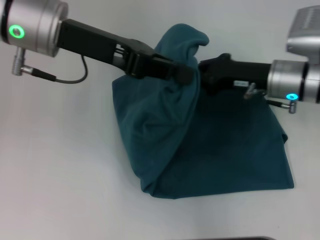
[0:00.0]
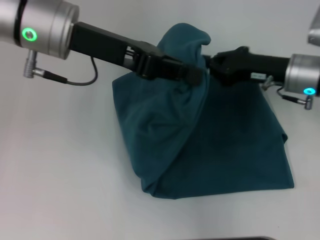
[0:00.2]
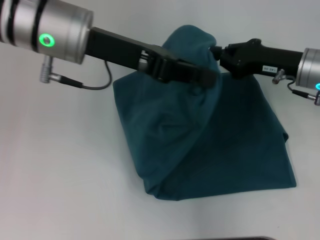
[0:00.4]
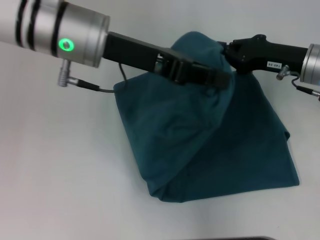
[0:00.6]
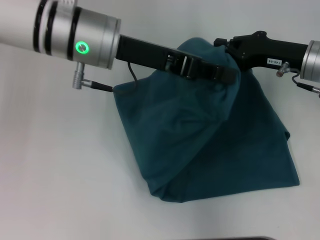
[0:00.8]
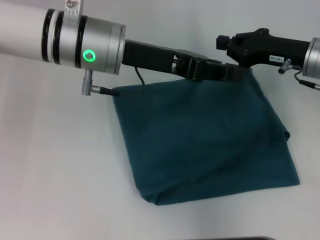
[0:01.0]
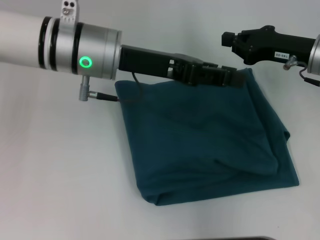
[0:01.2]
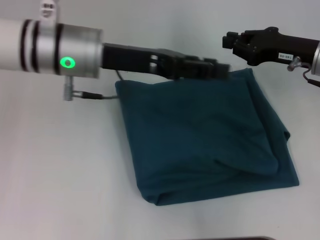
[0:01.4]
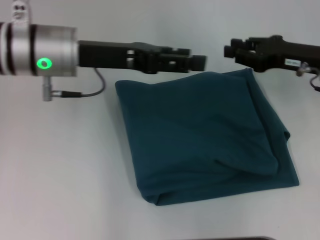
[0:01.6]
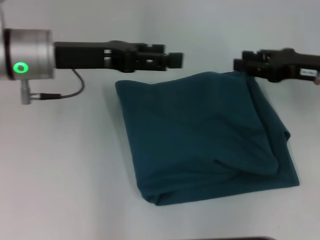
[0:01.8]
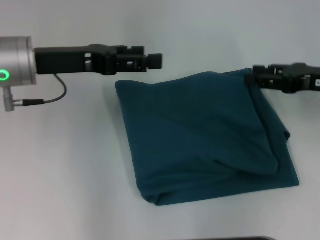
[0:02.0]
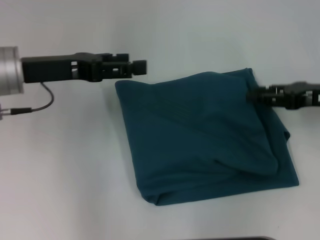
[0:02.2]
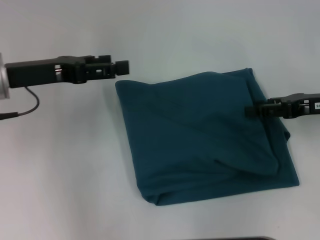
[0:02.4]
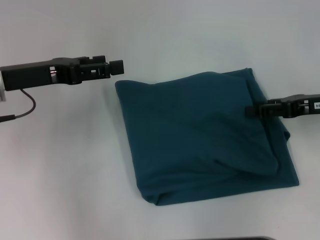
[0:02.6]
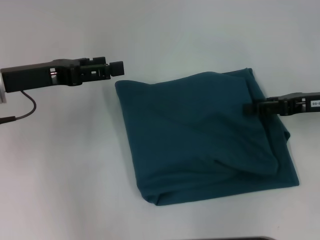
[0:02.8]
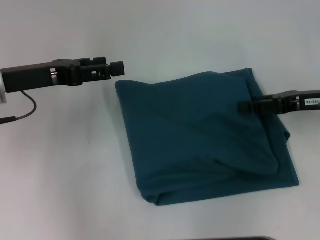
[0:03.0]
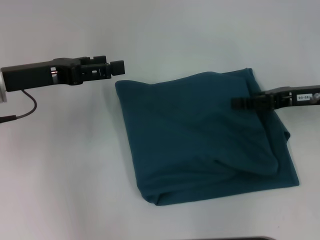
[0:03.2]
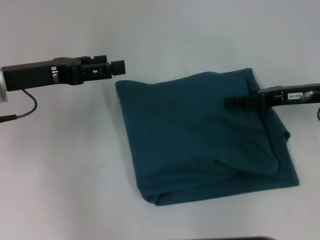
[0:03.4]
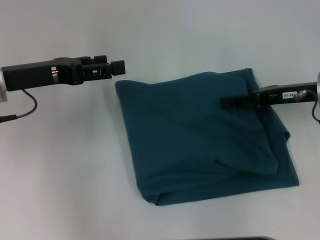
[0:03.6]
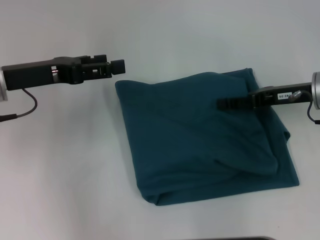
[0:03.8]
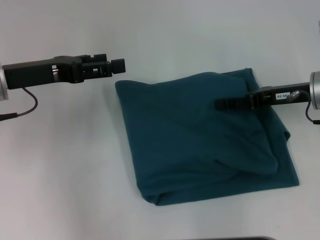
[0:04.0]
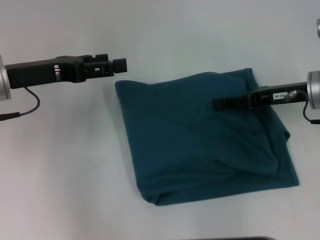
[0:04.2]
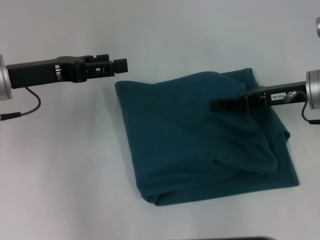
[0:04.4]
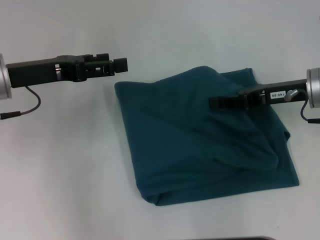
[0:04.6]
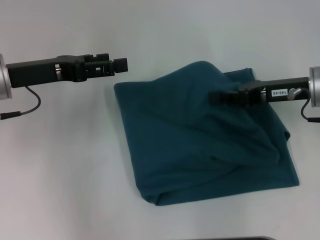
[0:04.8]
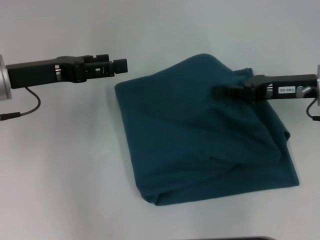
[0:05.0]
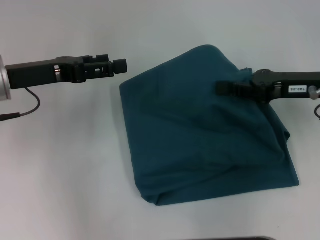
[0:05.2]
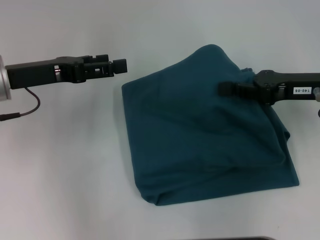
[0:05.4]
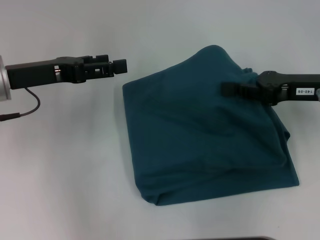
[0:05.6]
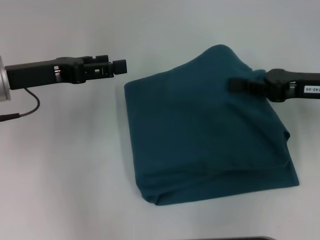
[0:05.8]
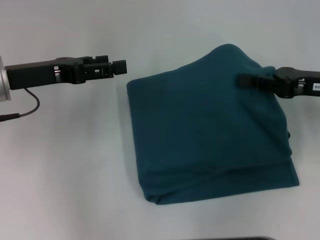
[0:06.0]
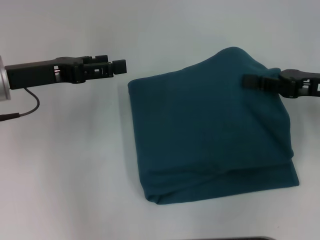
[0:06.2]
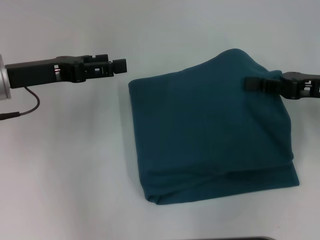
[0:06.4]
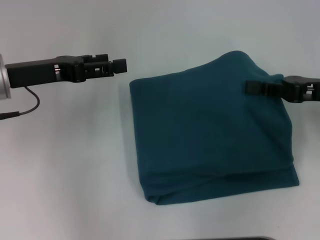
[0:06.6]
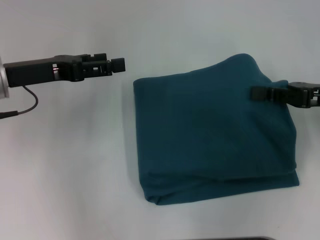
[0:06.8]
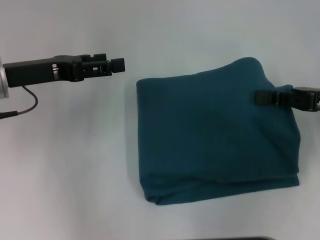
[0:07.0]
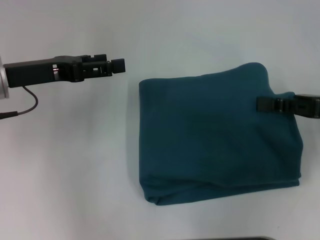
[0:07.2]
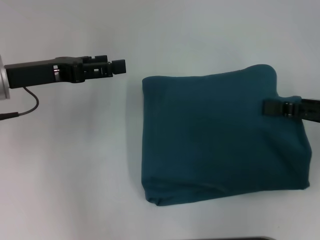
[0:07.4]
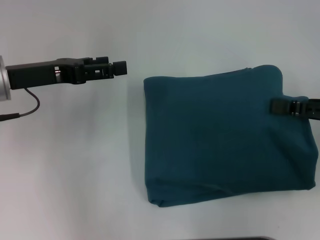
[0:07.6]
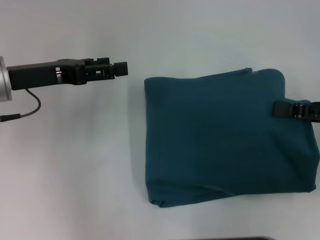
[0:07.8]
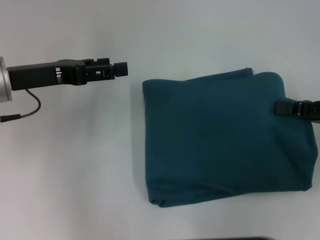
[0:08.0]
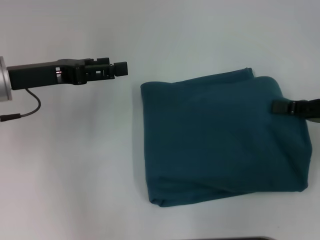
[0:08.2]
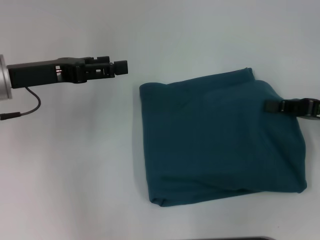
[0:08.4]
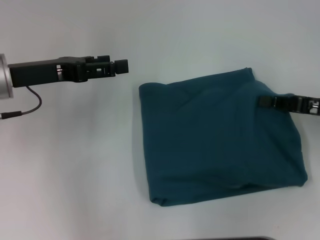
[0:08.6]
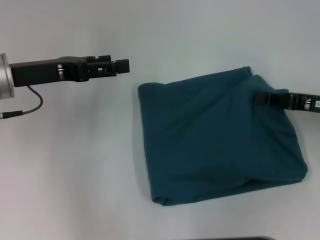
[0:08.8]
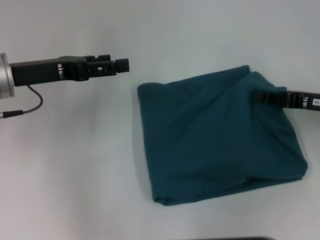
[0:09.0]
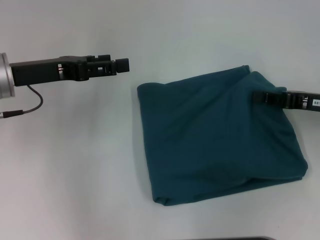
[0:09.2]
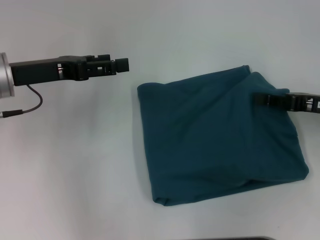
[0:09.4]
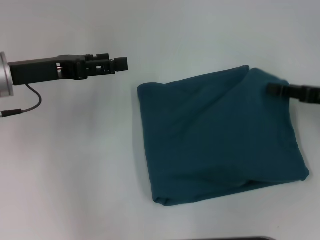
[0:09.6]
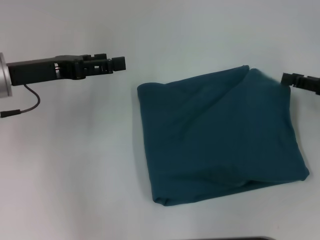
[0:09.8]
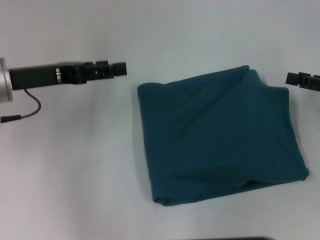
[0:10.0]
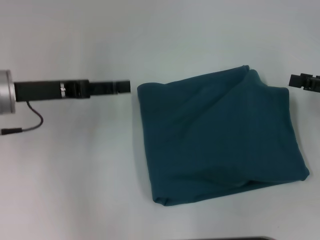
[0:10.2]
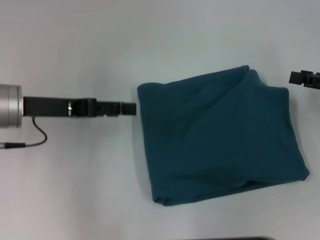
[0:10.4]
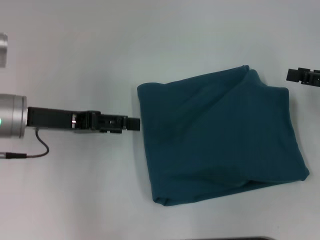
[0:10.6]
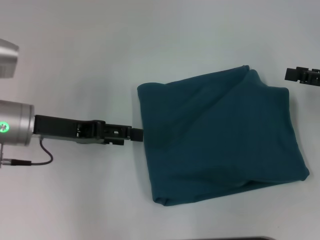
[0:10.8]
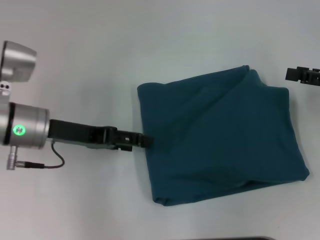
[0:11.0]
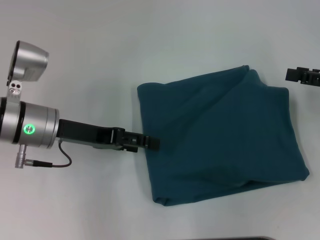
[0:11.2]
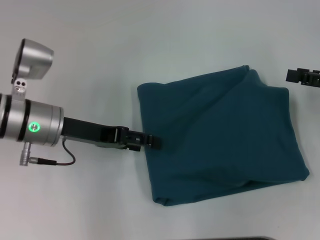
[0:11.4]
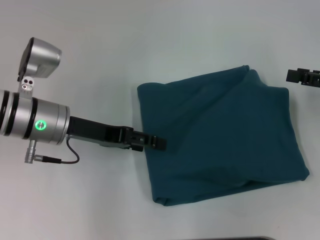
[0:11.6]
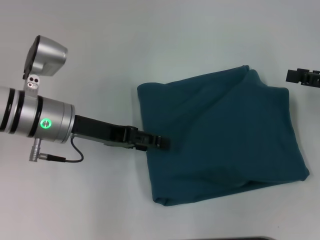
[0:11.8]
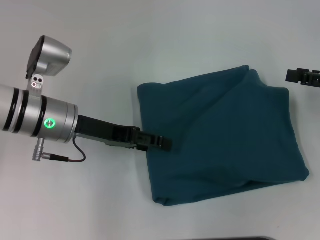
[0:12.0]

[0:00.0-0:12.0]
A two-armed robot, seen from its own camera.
Step, 0:00.0 to 0:02.0: Fold the clothes to the left.
0:00.0 to 0:01.6: The right gripper heads to the right, covering approximately 5 cm, while the left gripper shifts some 5 cm downward, and opens its fingers.
0:01.6 to 0:03.0: The left gripper moves to the left, some 10 cm. Meanwhile the right gripper opens.
0:03.0 to 0:04.4: The right gripper moves approximately 5 cm.
0:04.4 to 0:06.0: The right gripper changes place by some 5 cm, and closes its fingers.
0:06.0 to 0:07.6: The right gripper shifts by about 5 cm.
0:07.6 to 0:09.0: The right gripper ends up roughly 5 cm from where it was.
0:09.0 to 0:10.4: The right gripper goes about 5 cm to the right, and opens.
0:10.4 to 0:12.0: The left gripper moves to the right, about 5 cm.

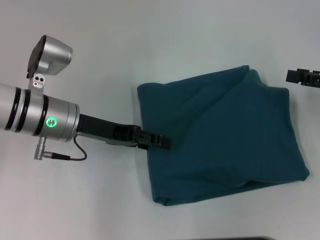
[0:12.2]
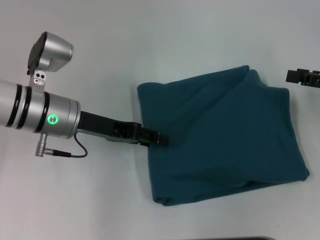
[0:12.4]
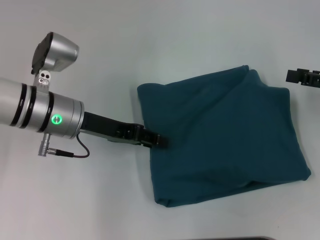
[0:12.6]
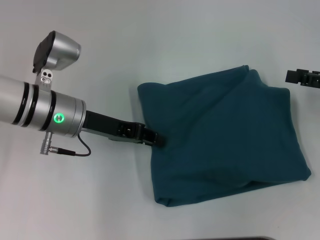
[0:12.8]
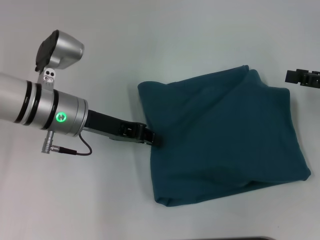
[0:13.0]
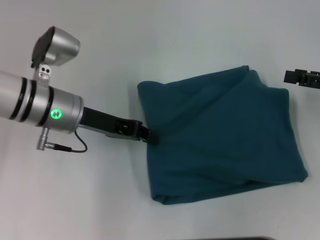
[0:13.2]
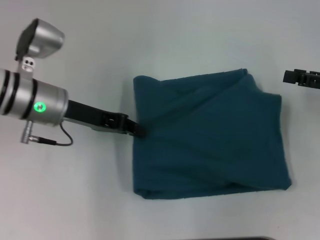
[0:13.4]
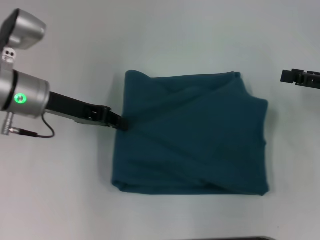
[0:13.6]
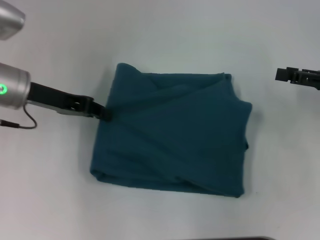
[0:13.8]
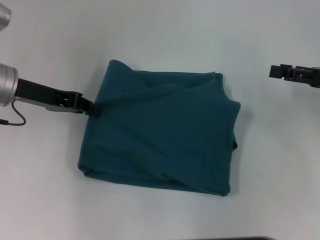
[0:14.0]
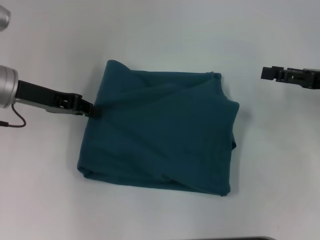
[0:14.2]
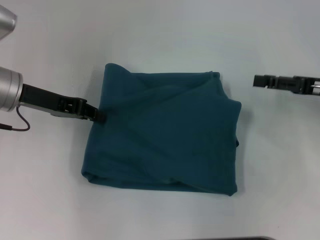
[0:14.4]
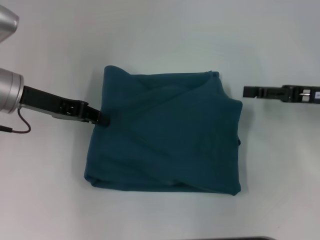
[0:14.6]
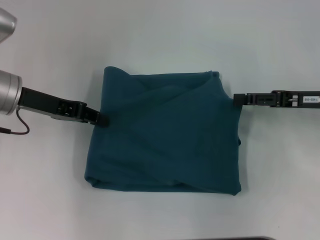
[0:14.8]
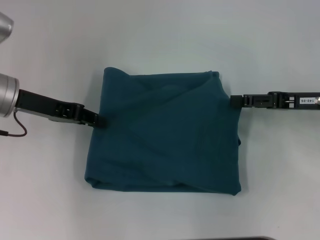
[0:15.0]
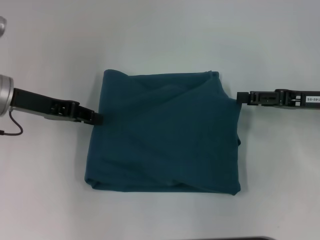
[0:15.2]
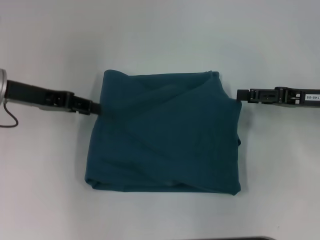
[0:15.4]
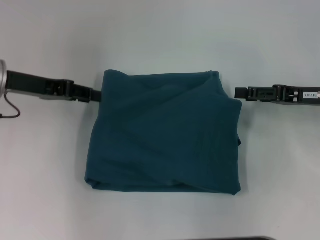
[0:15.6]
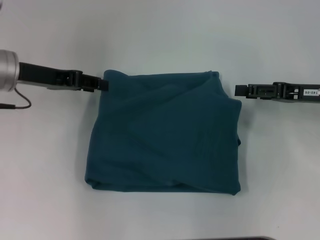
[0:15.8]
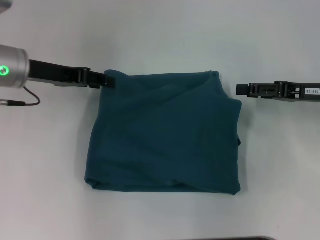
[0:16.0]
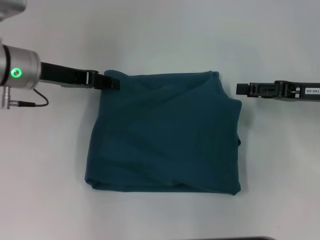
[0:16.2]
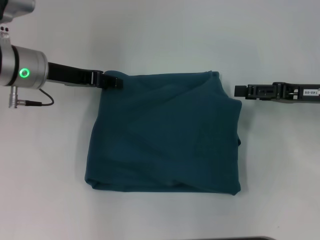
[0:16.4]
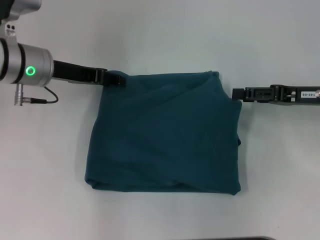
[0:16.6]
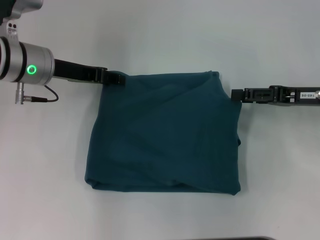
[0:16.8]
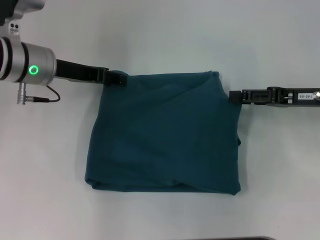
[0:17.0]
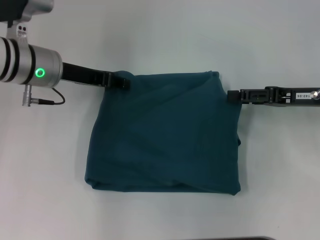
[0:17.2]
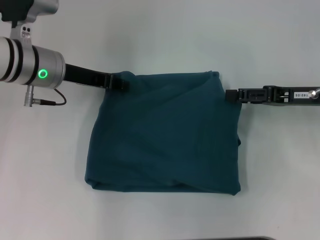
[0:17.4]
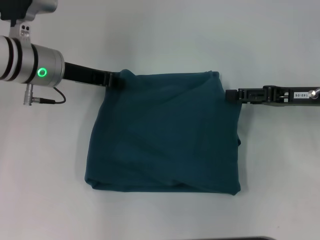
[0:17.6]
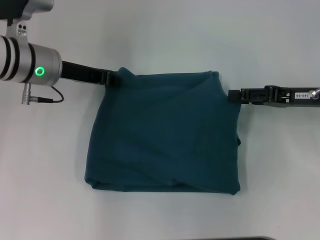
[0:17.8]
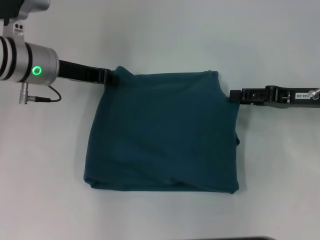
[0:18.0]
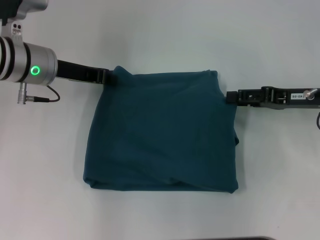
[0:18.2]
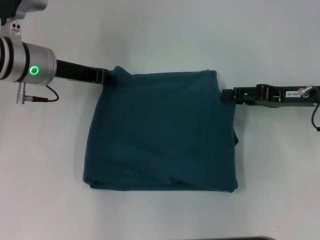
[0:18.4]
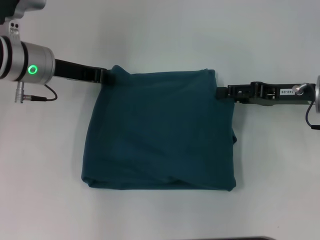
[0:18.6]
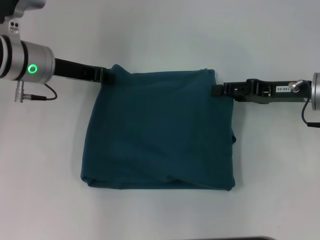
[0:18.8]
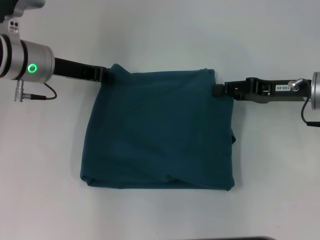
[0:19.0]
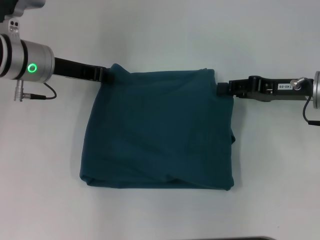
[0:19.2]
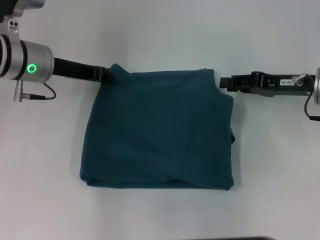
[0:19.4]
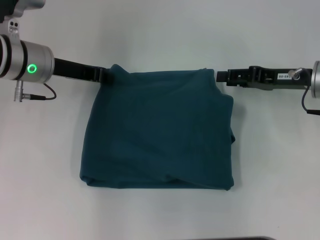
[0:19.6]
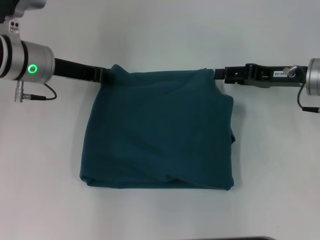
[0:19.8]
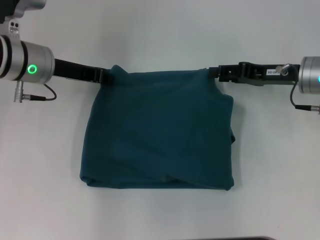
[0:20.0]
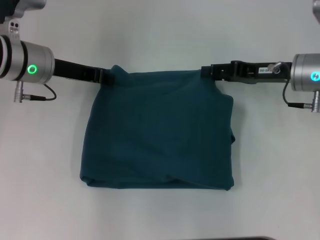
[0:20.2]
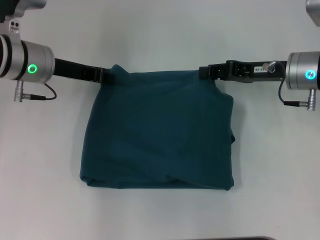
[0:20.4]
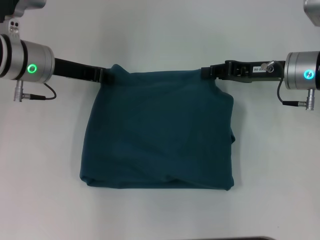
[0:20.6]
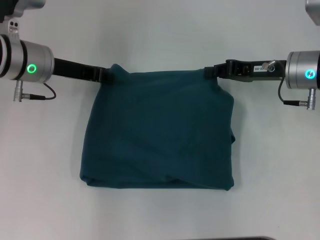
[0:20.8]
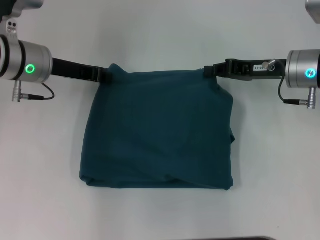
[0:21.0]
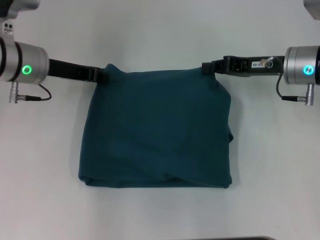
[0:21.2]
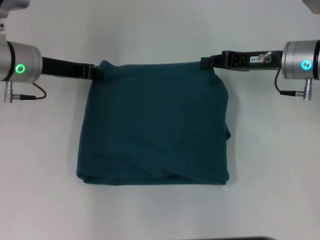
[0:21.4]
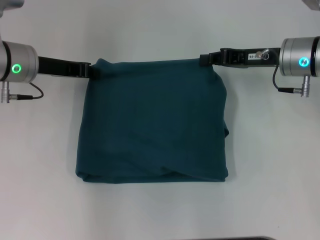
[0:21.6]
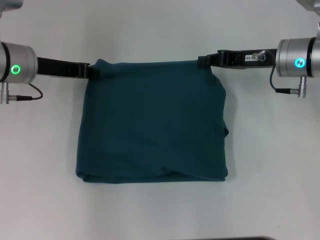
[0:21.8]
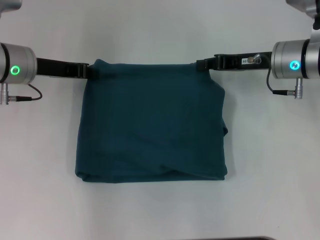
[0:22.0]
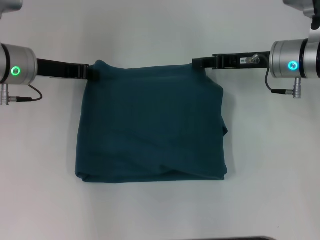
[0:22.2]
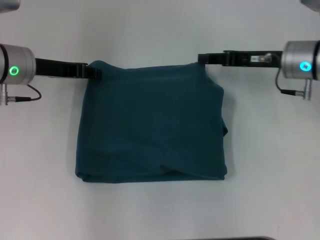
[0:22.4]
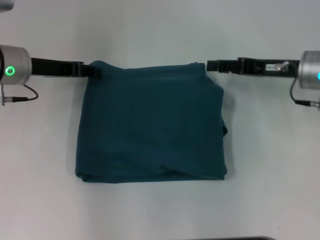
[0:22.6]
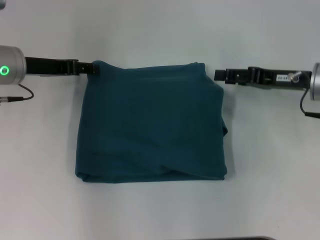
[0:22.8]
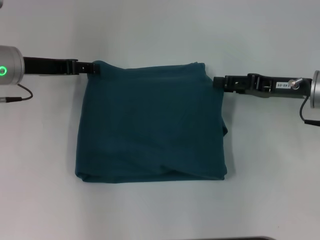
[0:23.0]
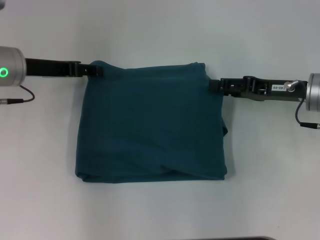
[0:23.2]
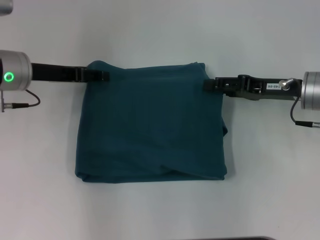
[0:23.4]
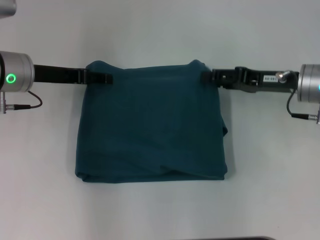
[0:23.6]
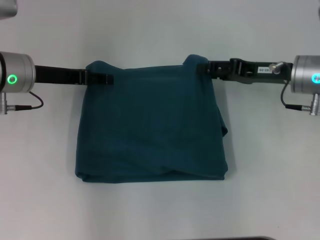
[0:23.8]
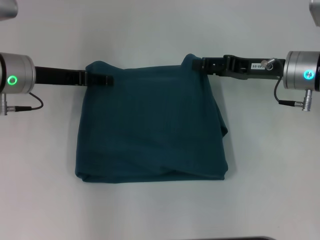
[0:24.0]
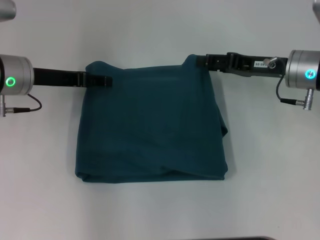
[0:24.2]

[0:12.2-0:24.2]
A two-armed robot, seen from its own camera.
0:12.2 to 0:13.8: The left gripper moves to the left, roughly 5 cm, and closes.
0:13.8 to 0:15.2: The right gripper moves some 5 cm.
0:15.2 to 0:16.6: The left gripper ends up approximately 5 cm from where it was, and opens up.
0:16.6 to 0:18.2: The left gripper closes its fingers.
0:18.2 to 0:19.8: The grippers make only small movements.
0:19.8 to 0:21.2: The right gripper closes its fingers.
0:21.2 to 0:22.6: The right gripper opens its fingers.
0:22.6 to 0:24.2: The left gripper opens its fingers.
